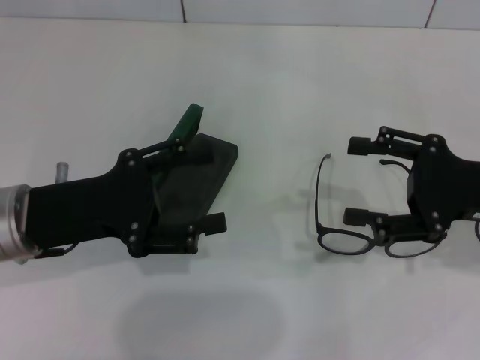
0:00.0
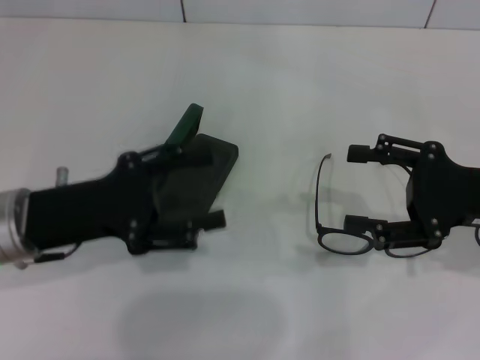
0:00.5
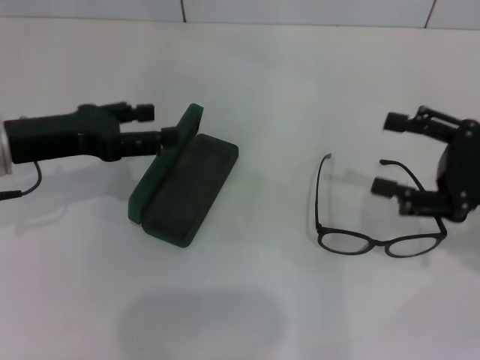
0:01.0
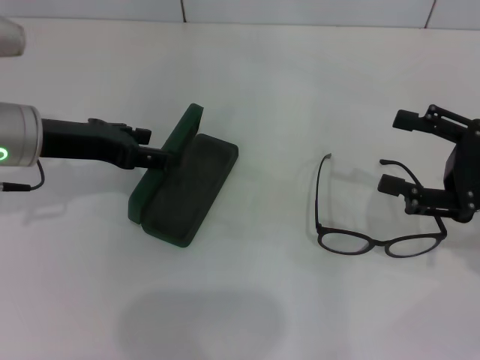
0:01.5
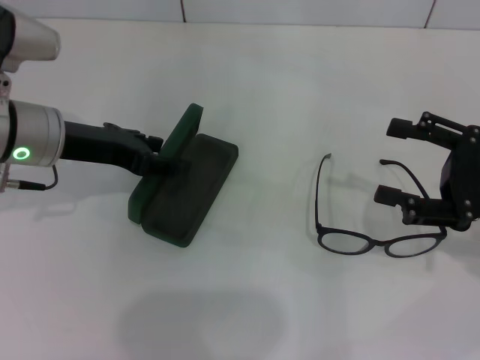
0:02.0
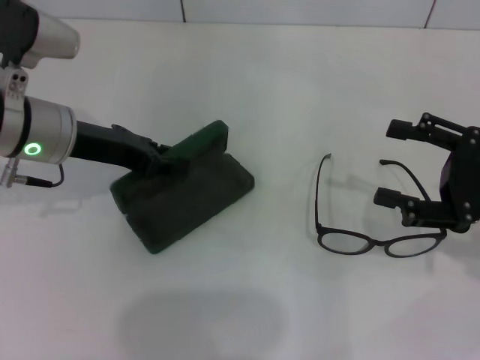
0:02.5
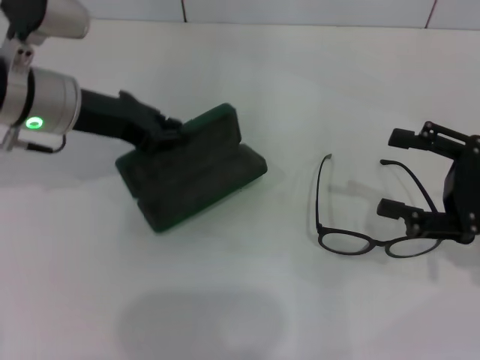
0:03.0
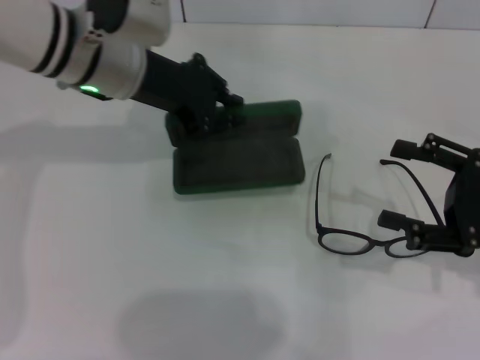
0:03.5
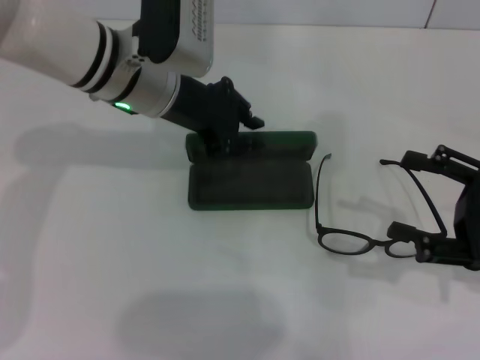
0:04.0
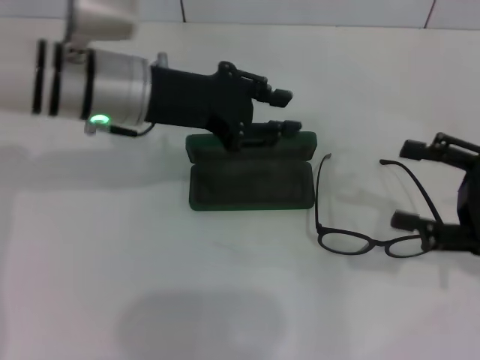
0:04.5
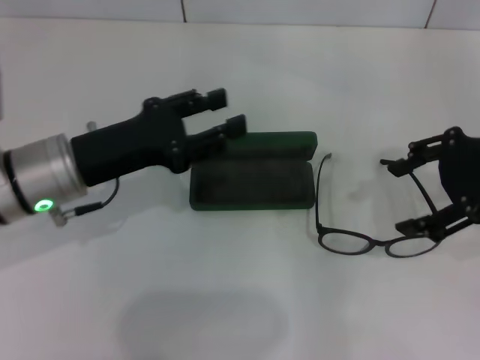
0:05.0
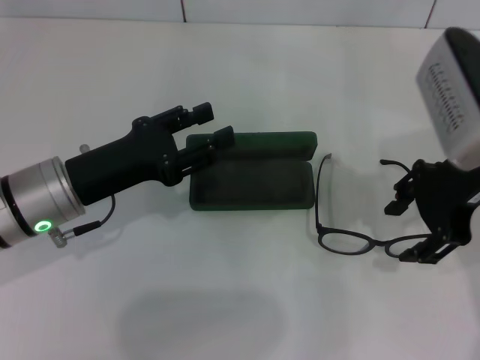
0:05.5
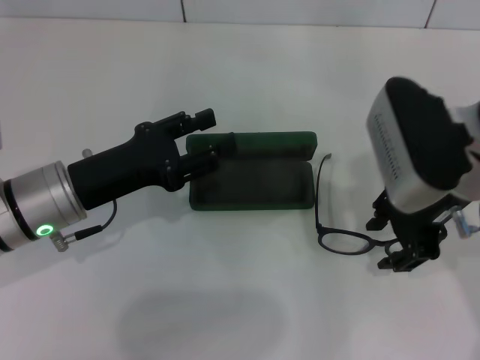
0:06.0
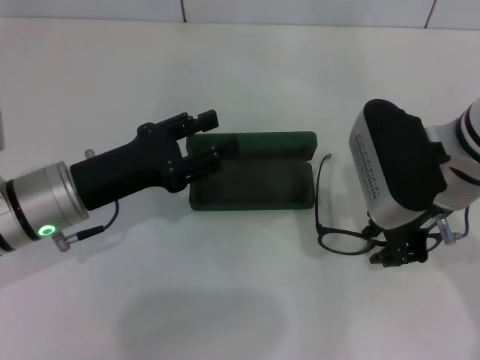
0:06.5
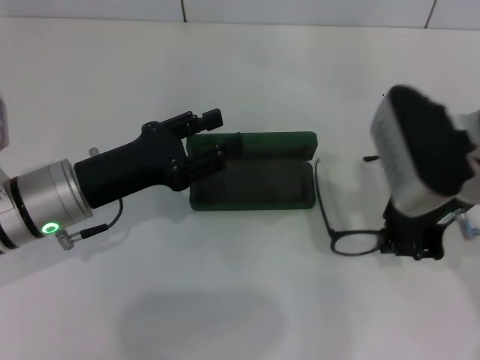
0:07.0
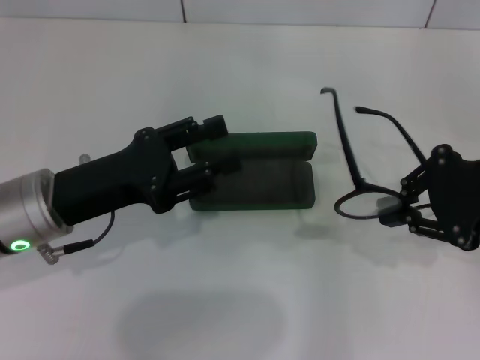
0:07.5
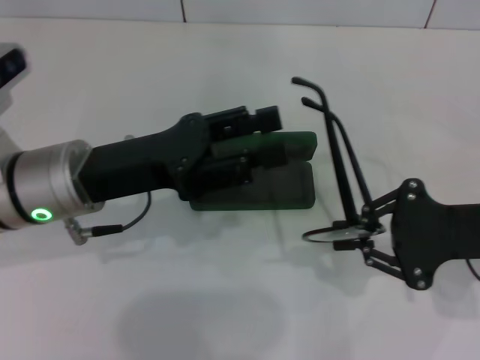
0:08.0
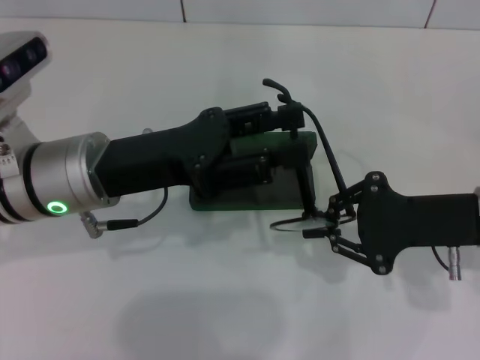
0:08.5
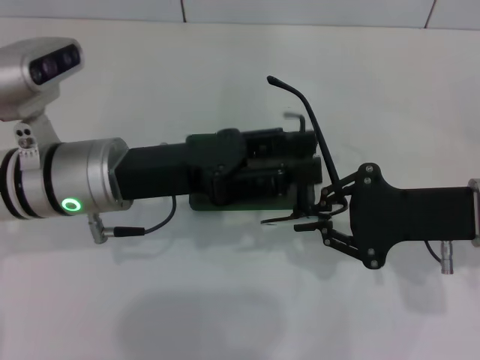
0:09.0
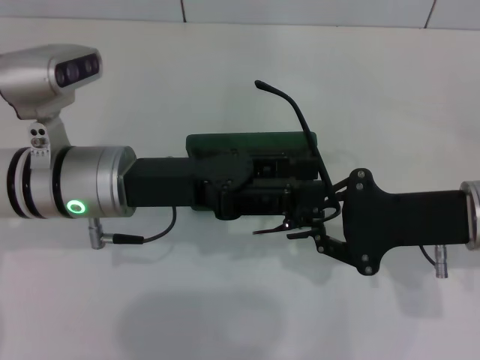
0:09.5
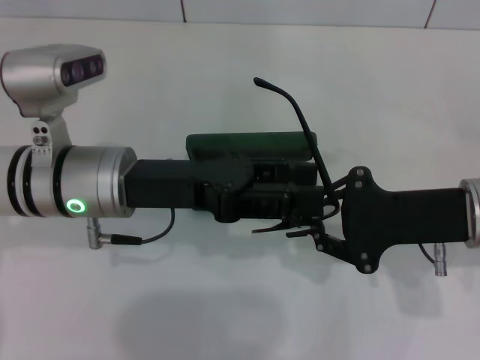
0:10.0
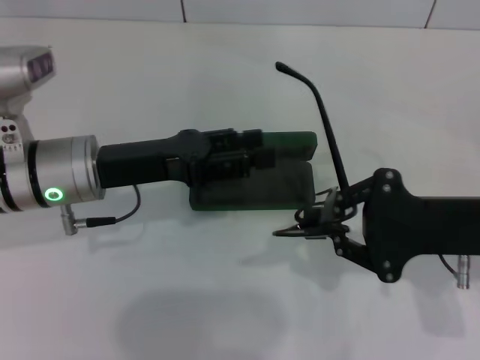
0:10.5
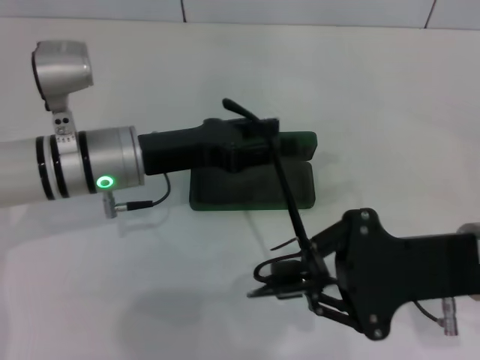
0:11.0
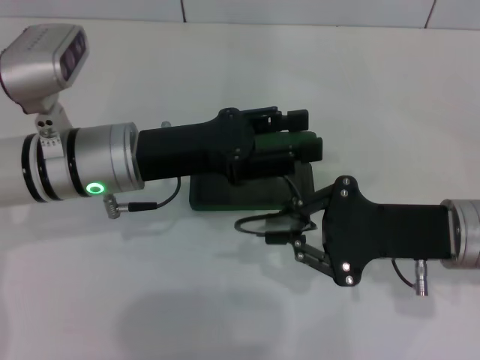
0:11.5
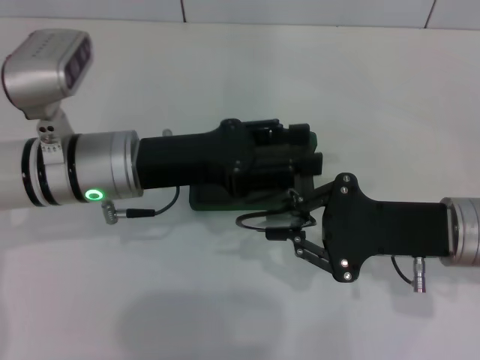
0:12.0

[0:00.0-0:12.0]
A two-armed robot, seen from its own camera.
Step, 0:00.0 to 0:02.5: Grab the glasses case with your left hand.
Step, 0:03.0 to 0:04.0: Place the glasses case in the center of the table with your left hand.
Step, 0:04.5 to 0:06.5: Grab the eyeglass frame with your right hand.
Step, 0:07.0 to 0:12.0: Fold the frame with your left hand.
0:00.0 to 0:02.0: The left gripper moves forward, roughly 10 cm.
0:02.0 to 0:04.0: The left gripper goes about 10 cm to the right, and closes.
0:04.0 to 0:06.0: The left gripper travels backward, to the left and downward by approximately 15 cm, and opens its fingers; the right gripper is displaced to the left, upward and forward by roughly 20 cm.
0:06.0 to 0:08.0: The left gripper shifts by roughly 5 cm. The right gripper is displaced to the right, downward and backward by roughly 10 cm, and closes up.

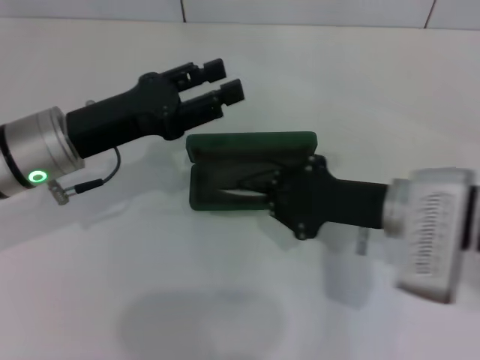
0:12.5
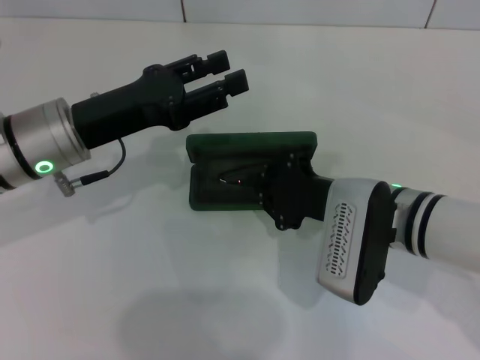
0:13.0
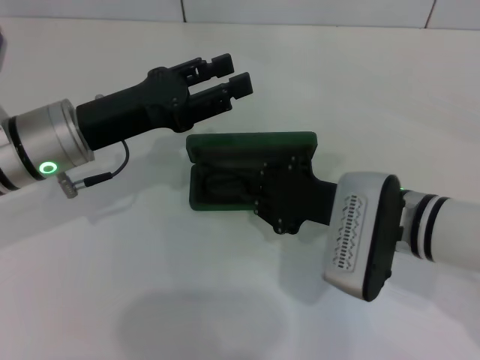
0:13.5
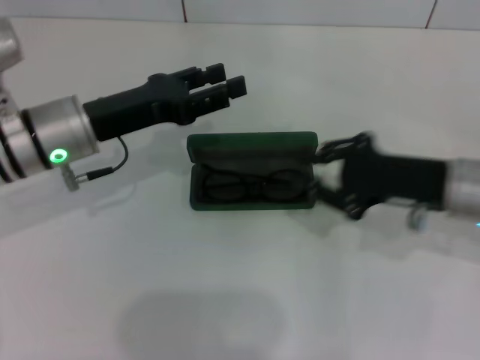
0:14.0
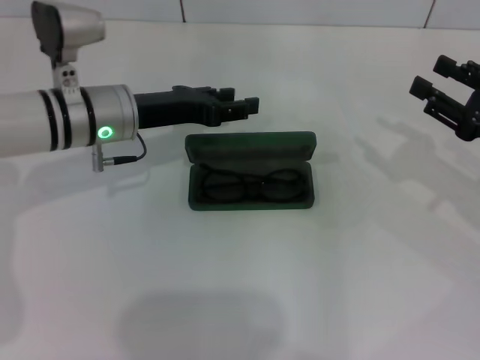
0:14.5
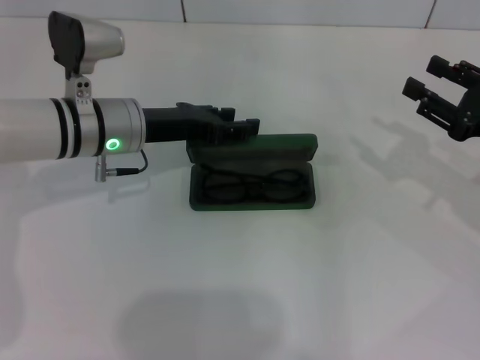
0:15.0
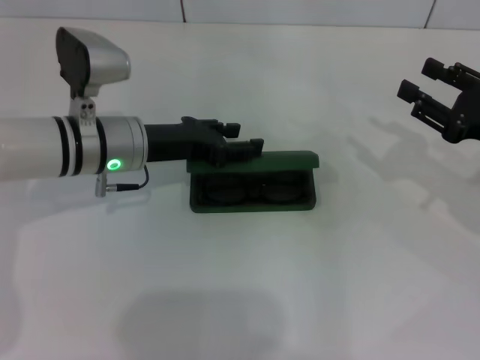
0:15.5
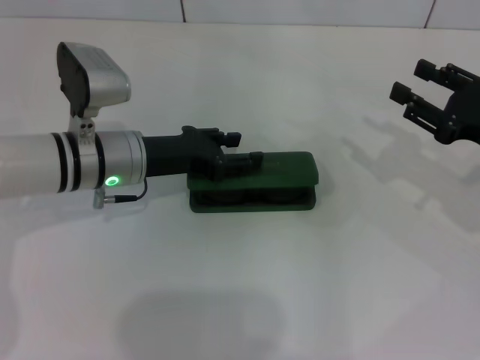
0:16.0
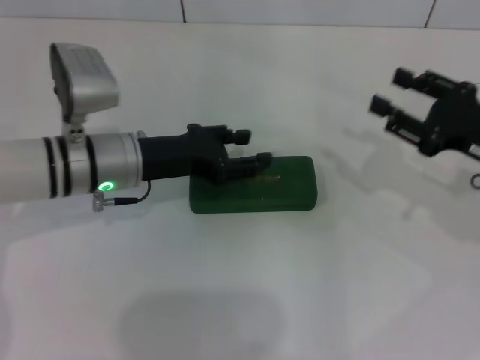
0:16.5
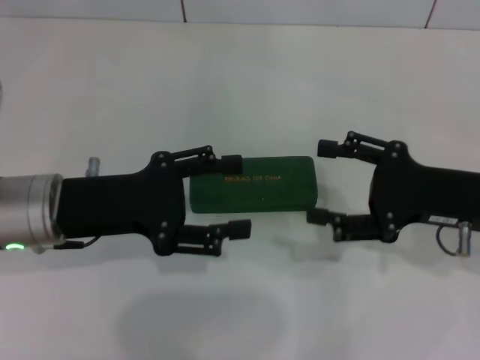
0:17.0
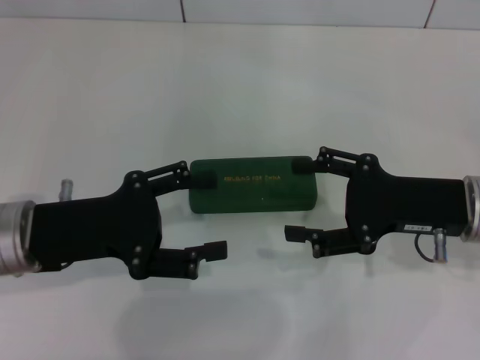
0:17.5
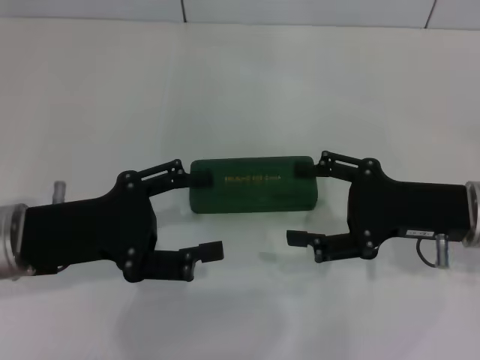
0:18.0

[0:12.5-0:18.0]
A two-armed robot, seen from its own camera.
Step, 0:12.5 to 0:13.5: Put the glasses into the case with your right hand.
Step, 0:14.0 to 0:16.0: Close the glasses case with your left hand.
0:12.5 to 0:14.5: The left gripper shifts roughly 5 cm forward; the right gripper heads to the right, covering some 15 cm.
0:14.5 to 0:16.0: The grippers stay close to where they were, moving slightly.
0:16.0 to 0:18.0: The left gripper travels backward and to the left by some 15 cm, while the right gripper shifts roughly 5 cm to the left, and opens.
